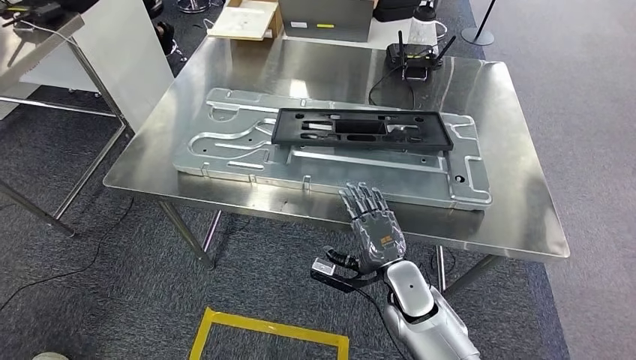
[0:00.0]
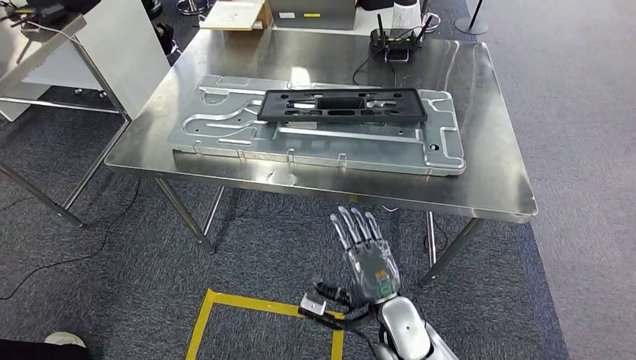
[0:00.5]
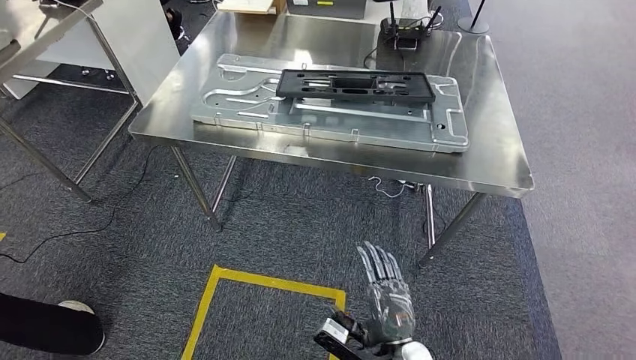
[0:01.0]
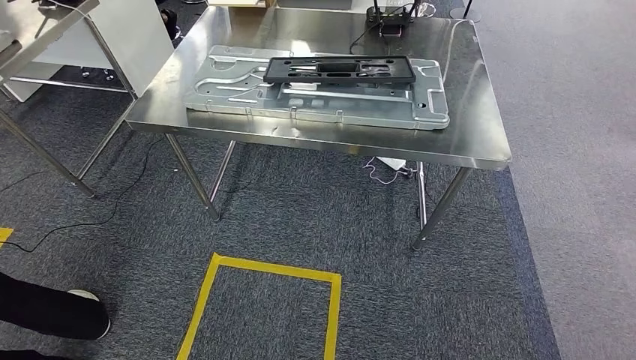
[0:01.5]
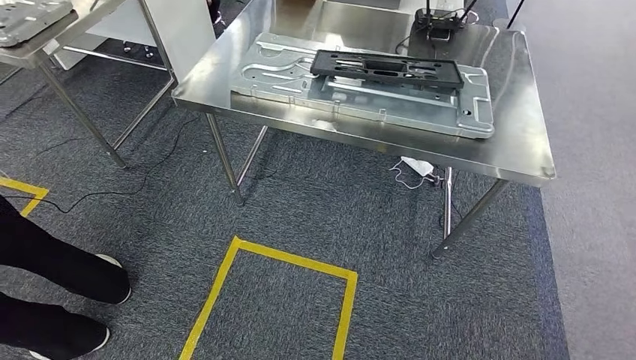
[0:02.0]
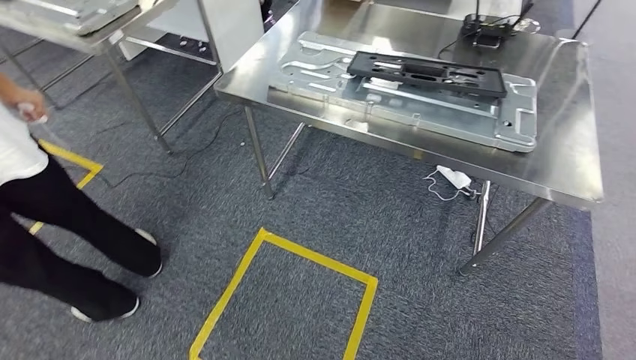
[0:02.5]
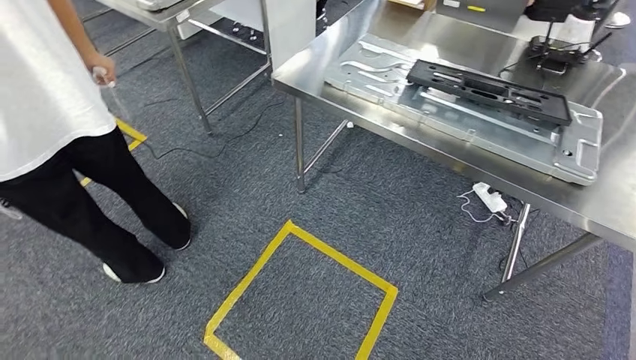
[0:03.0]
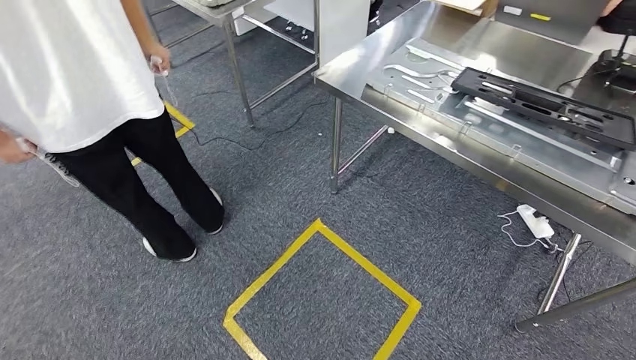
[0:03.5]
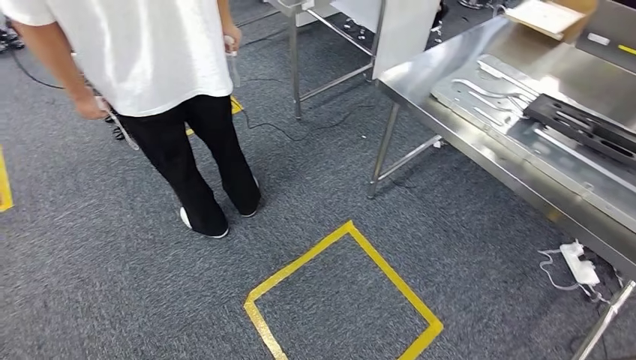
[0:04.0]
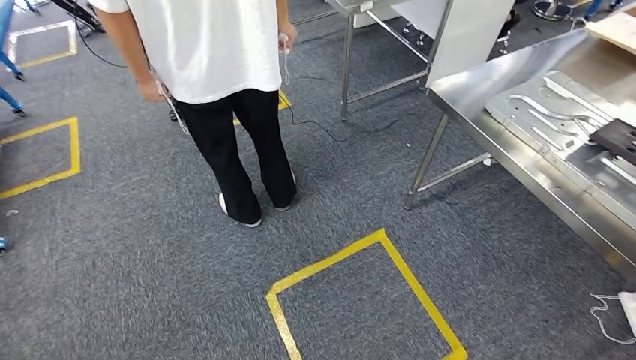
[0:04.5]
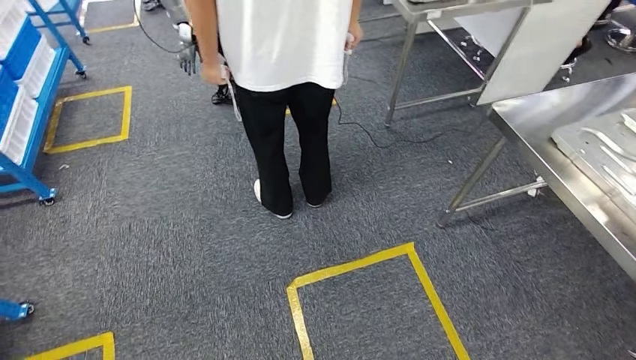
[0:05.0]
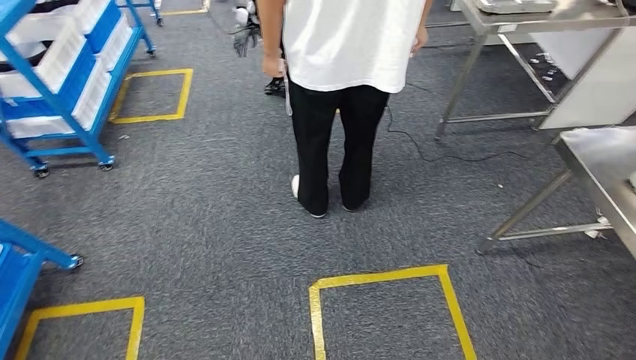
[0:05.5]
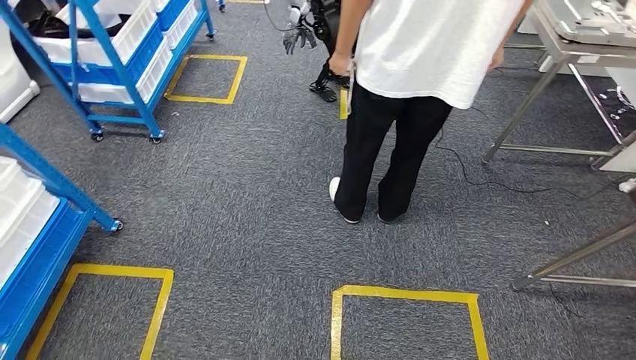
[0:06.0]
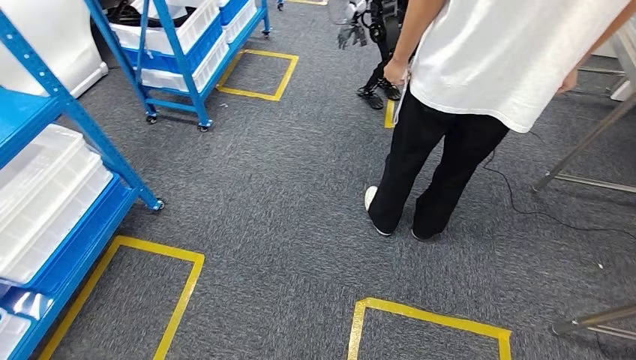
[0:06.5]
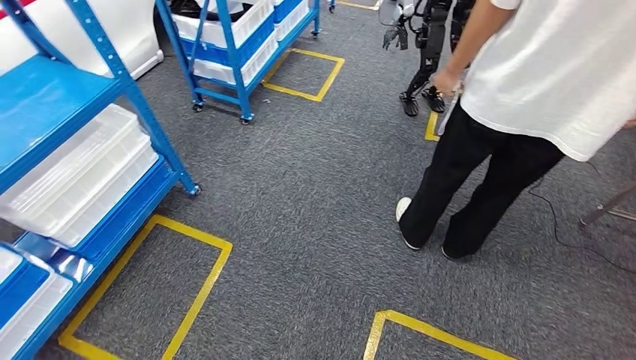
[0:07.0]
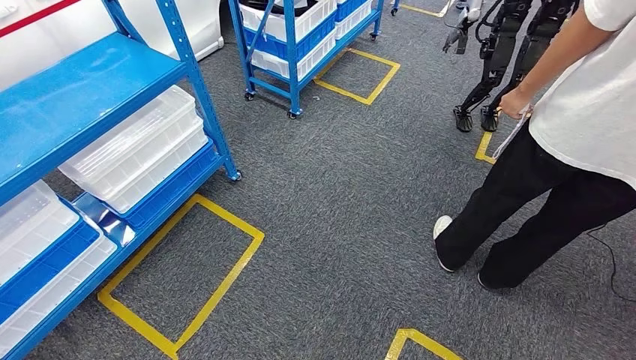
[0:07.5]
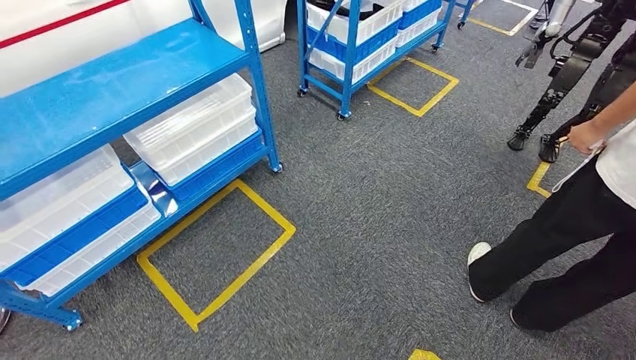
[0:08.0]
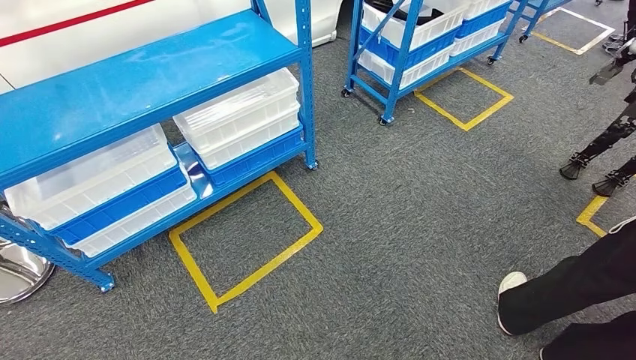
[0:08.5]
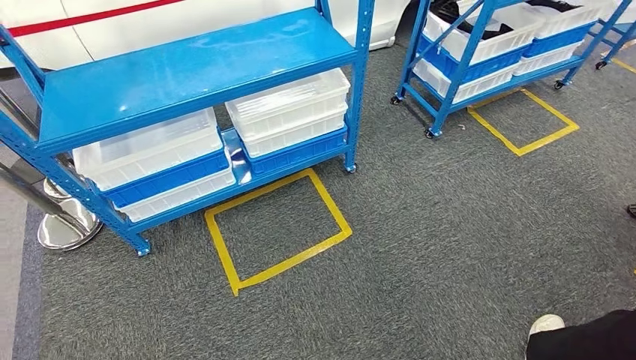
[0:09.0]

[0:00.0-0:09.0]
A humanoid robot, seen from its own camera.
Step, 0:00.0 to 0:02.0: Insert the large material into the corresponding slot on the workbench.

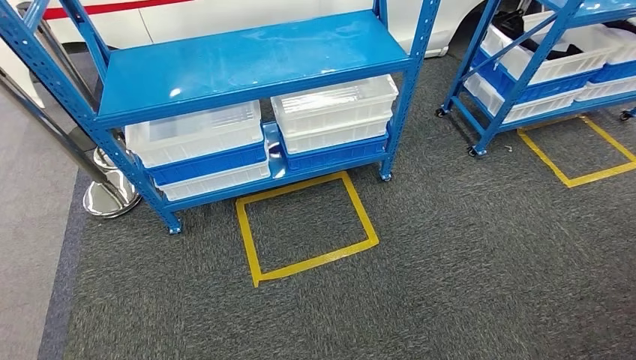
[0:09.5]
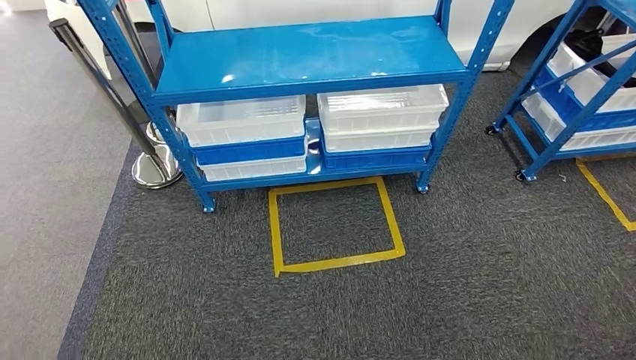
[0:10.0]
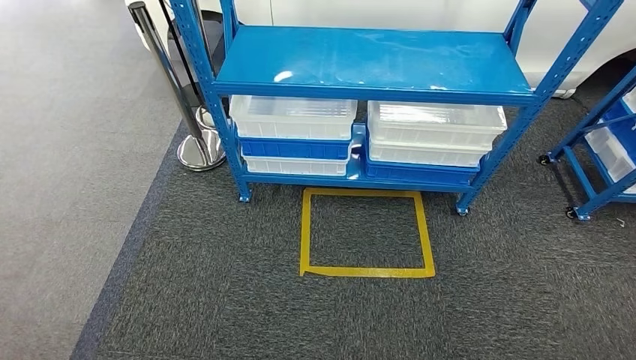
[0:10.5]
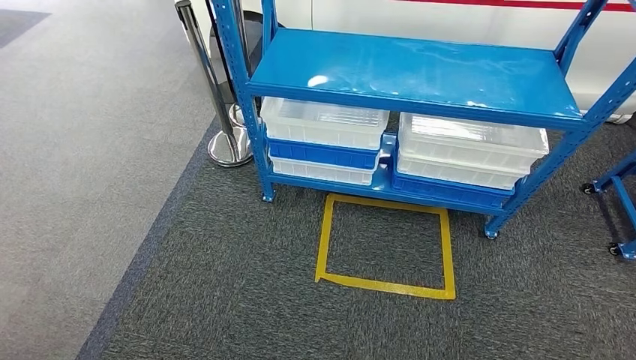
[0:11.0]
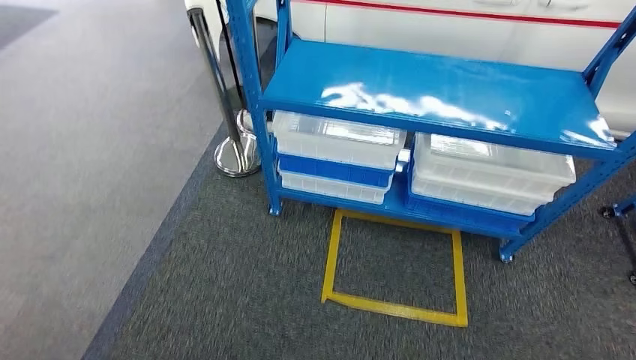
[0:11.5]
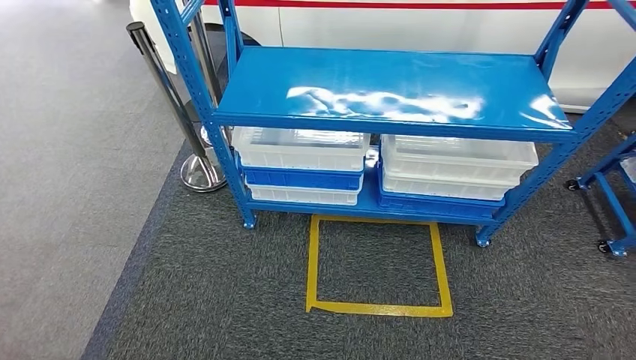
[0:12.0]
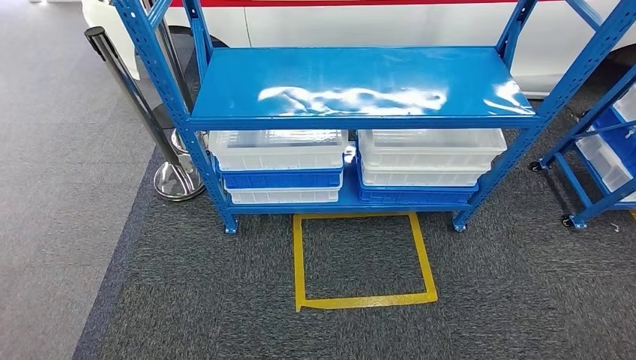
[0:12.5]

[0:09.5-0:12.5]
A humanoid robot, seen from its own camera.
Step, 0:09.5 to 0:12.5: Move to the initial position of the shelf.
